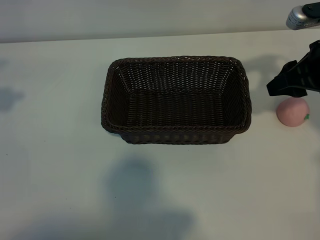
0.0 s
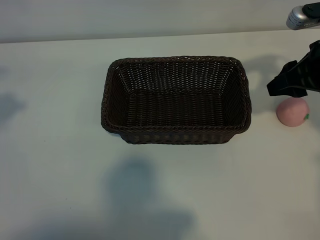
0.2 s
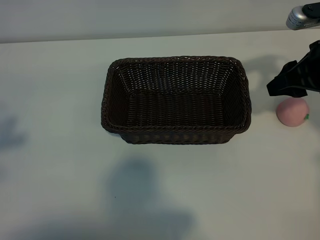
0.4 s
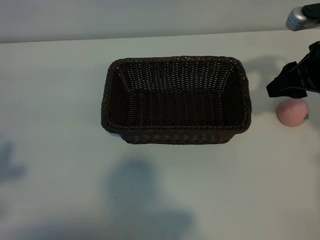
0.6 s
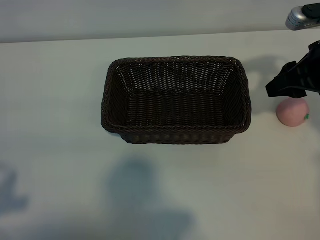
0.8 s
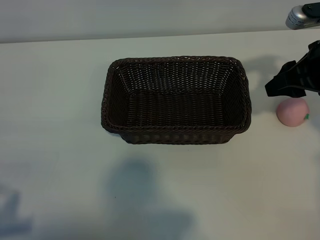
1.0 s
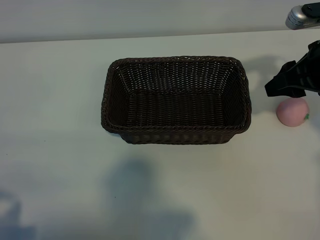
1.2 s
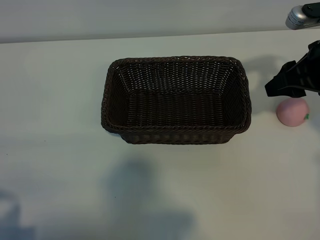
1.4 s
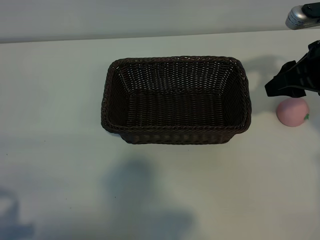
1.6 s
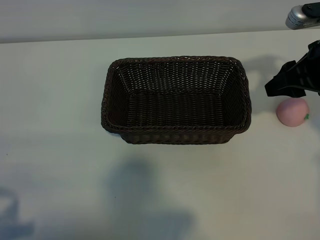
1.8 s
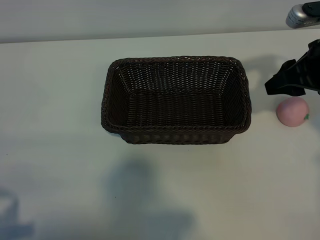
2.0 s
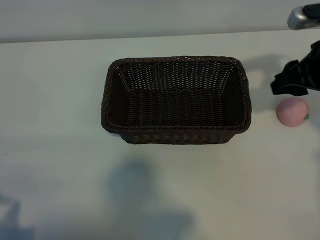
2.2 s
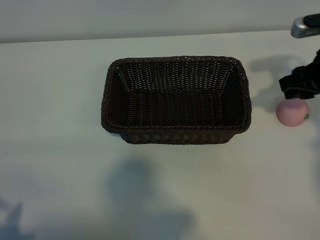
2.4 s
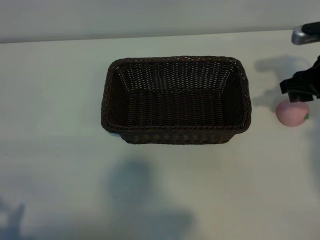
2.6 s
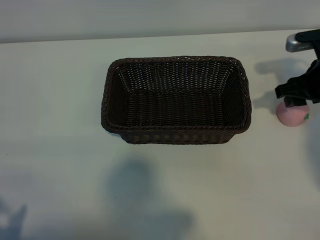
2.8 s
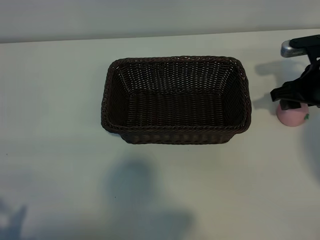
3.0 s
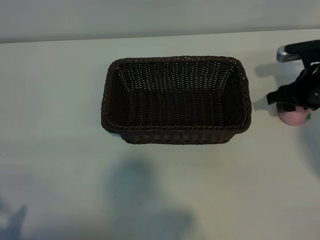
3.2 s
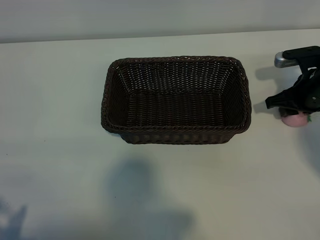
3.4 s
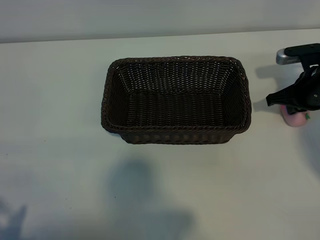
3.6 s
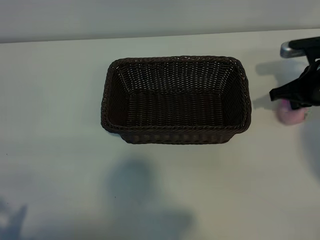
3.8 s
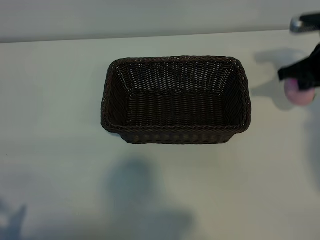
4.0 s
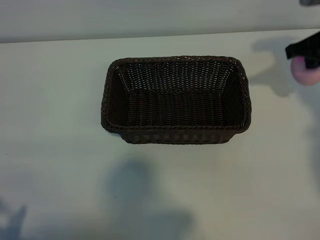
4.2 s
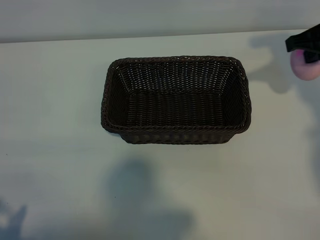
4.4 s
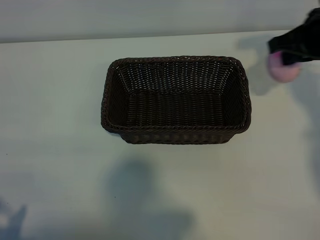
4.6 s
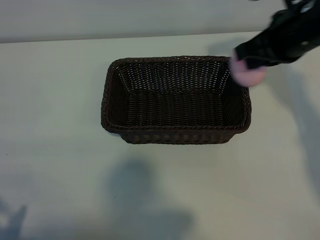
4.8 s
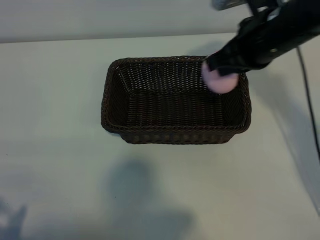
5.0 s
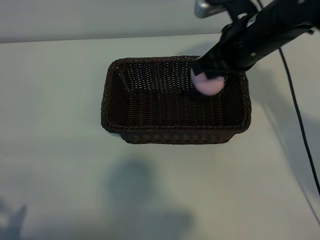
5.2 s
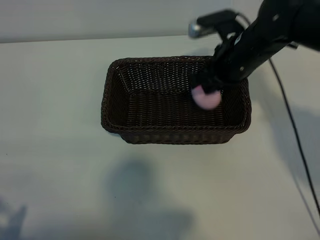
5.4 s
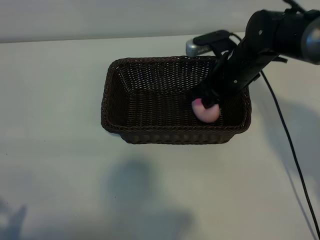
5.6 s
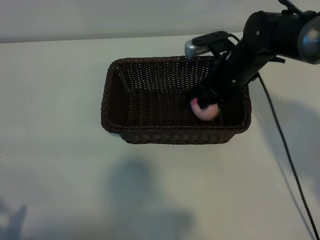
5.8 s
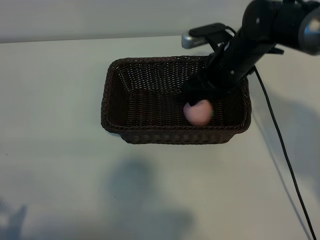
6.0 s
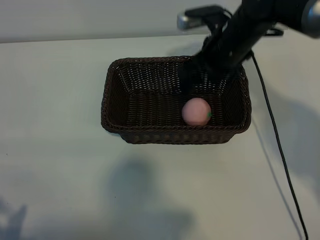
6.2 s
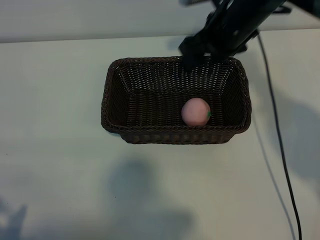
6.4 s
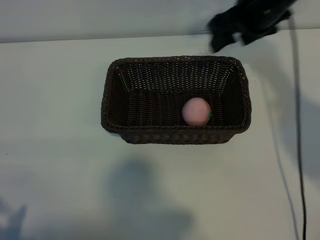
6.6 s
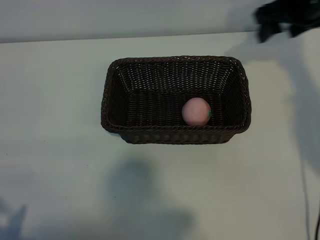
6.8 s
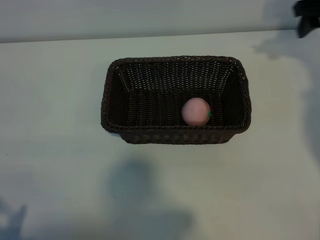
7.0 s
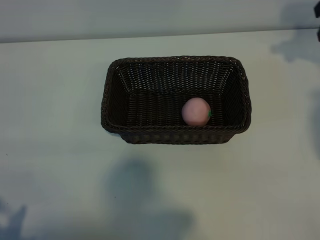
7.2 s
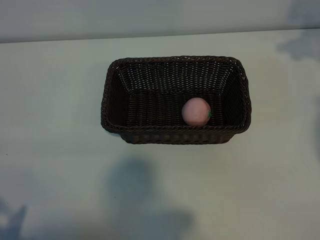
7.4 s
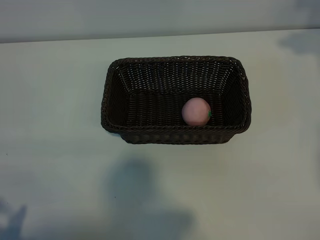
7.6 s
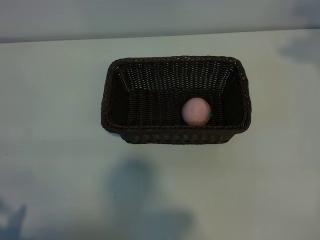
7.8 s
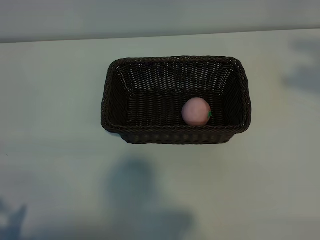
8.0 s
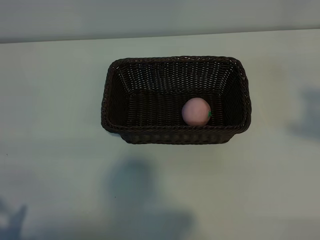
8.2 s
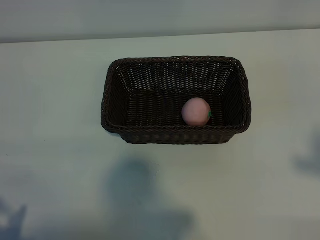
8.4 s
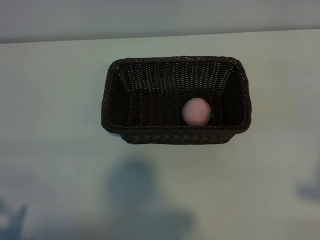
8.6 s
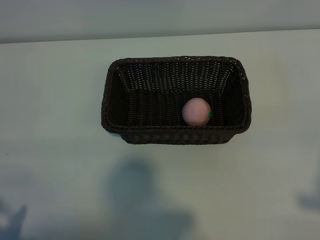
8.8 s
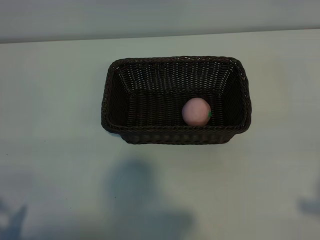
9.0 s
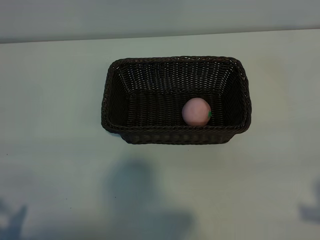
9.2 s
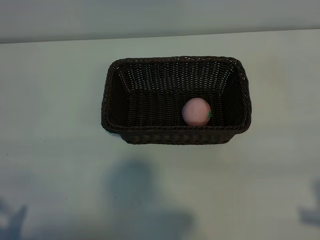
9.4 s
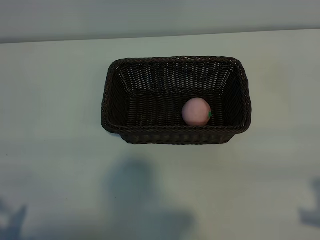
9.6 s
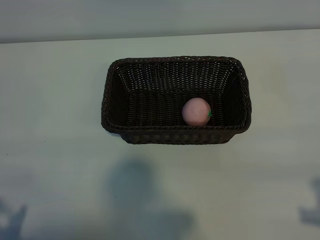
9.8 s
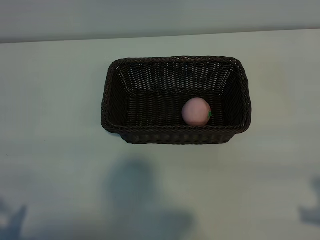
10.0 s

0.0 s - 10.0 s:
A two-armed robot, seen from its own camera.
Task of the whole recording: pick up the peach and put it into the basket.
Step, 0.0 s - 3.6 s: Grasp the peach with right gripper.
Step, 3.8 s - 6.0 s: Place the peach in the basket with right gripper.

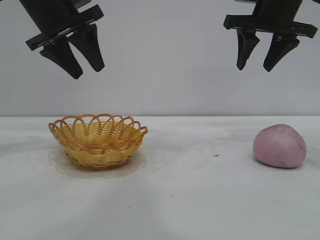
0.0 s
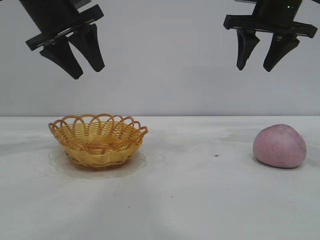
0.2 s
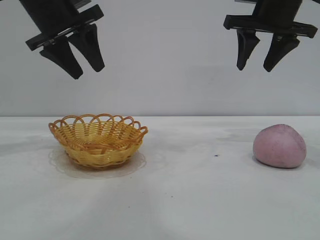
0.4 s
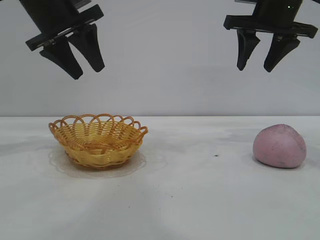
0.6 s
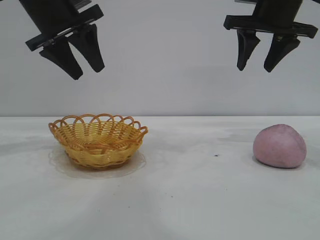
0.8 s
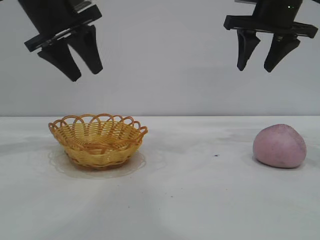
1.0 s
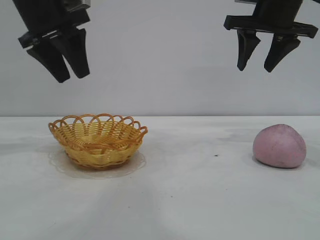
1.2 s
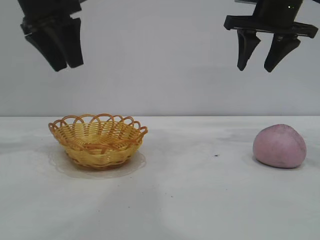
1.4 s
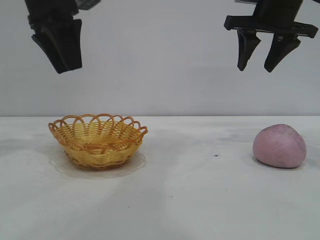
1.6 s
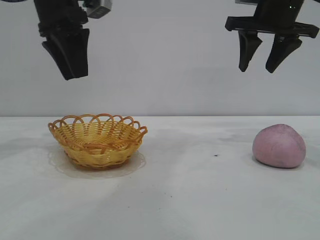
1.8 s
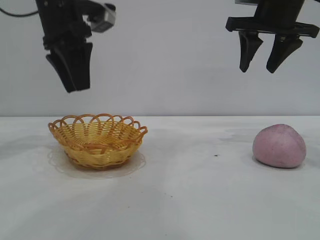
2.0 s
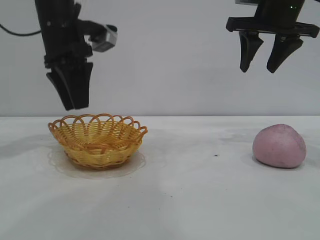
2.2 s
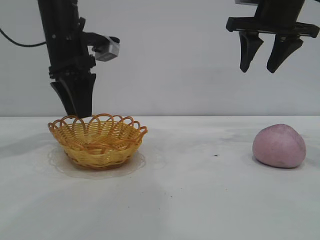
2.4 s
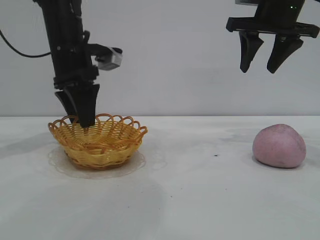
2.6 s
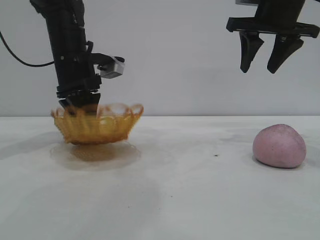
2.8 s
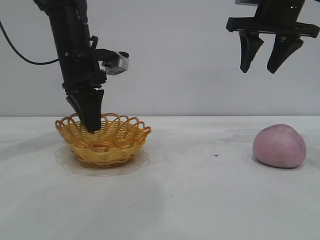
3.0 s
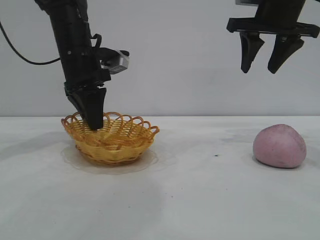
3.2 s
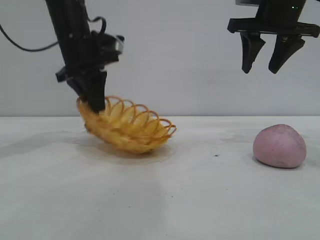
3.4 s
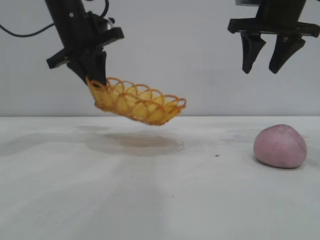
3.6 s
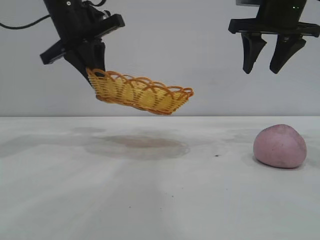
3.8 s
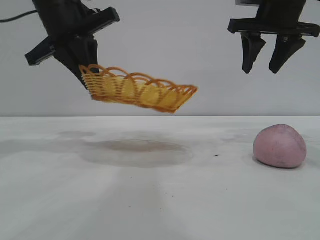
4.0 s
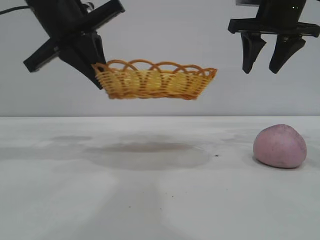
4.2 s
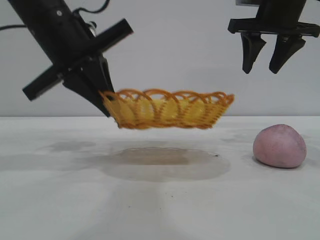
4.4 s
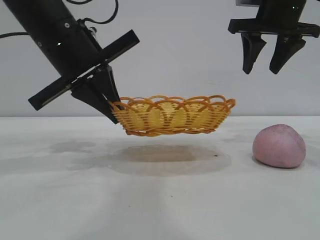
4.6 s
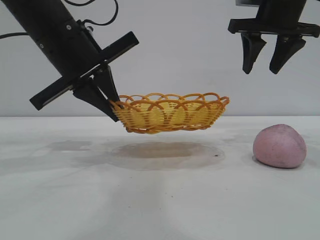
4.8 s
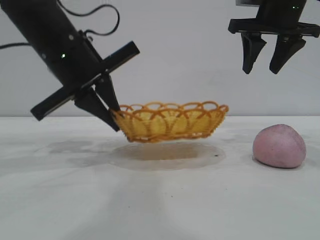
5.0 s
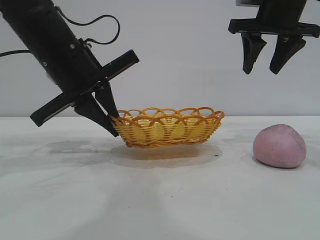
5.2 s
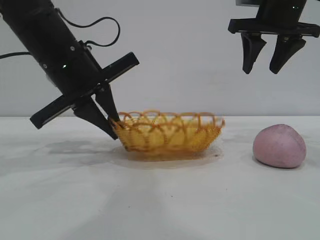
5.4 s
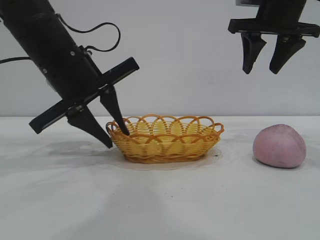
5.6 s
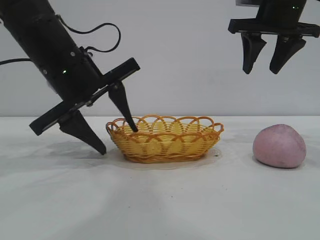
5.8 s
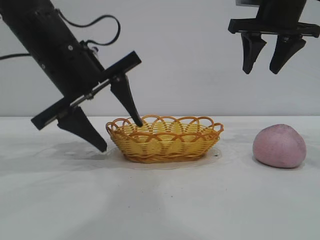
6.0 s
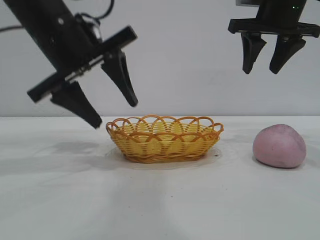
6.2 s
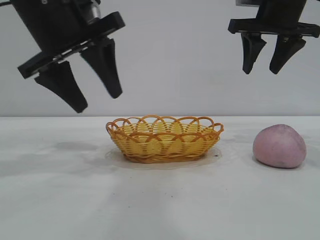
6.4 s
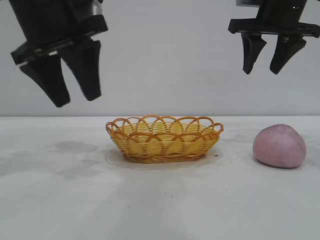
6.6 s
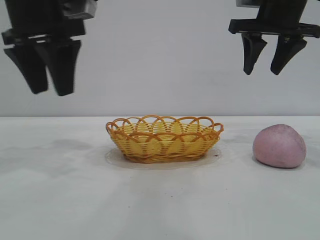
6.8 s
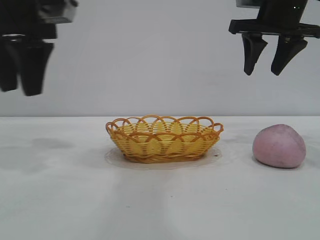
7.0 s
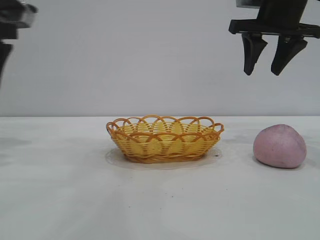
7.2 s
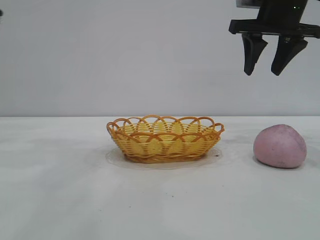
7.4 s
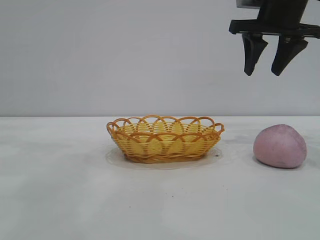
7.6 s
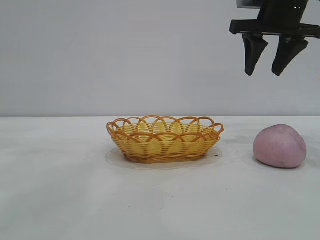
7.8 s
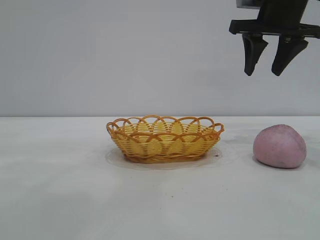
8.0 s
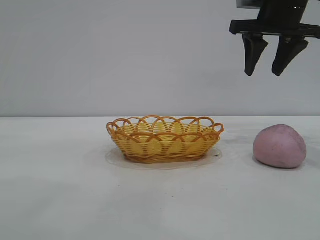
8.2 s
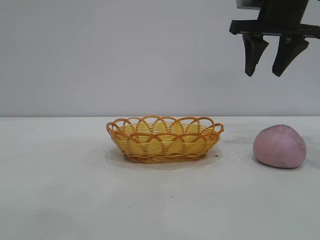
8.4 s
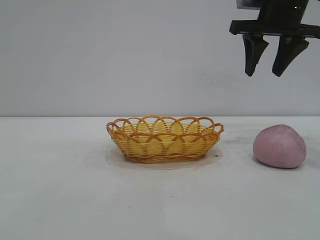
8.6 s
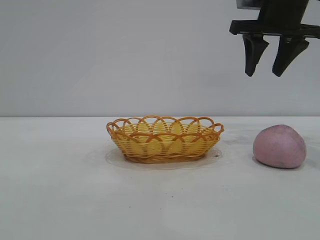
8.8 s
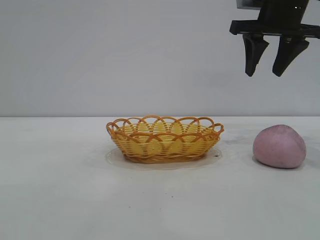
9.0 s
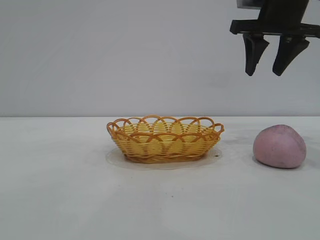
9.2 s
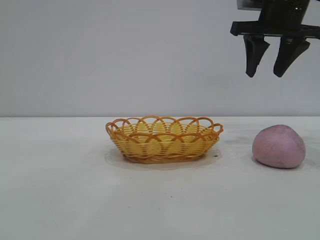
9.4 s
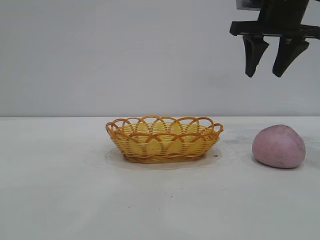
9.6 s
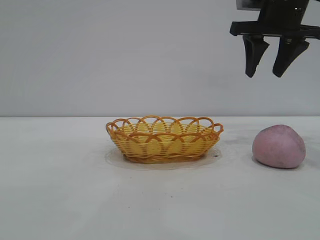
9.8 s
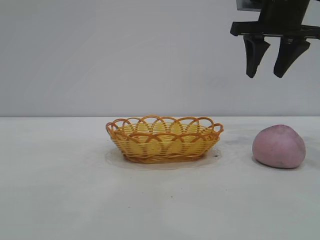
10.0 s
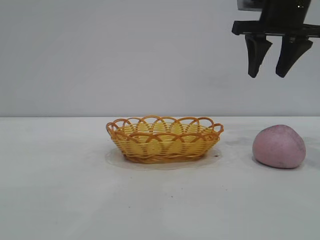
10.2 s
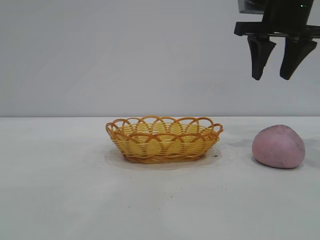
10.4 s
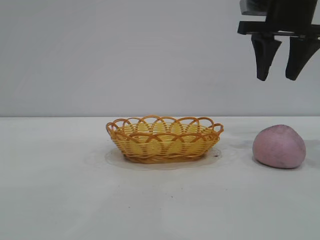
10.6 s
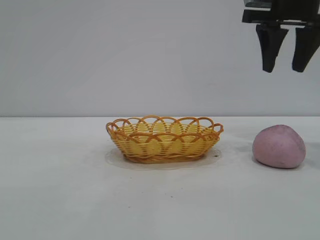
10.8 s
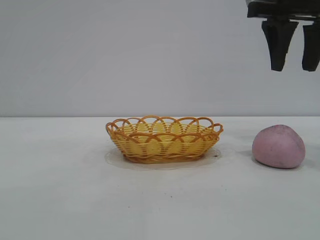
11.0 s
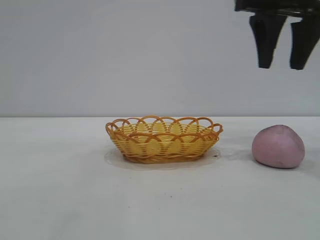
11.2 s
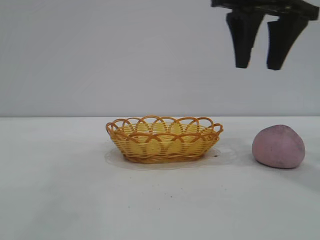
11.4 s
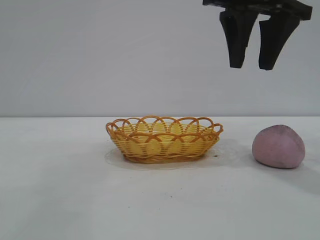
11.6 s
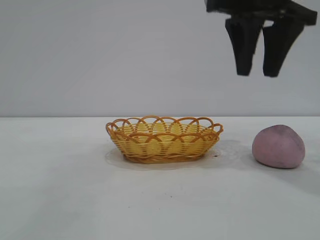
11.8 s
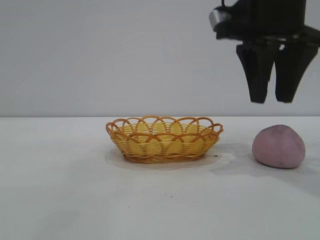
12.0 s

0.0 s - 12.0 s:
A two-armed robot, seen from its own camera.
Task of the whole recording: pick up the peach and put it into the basket.
Step, 0.0 s - 6.6 s: Move the basket to the center of view.

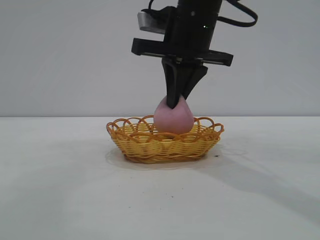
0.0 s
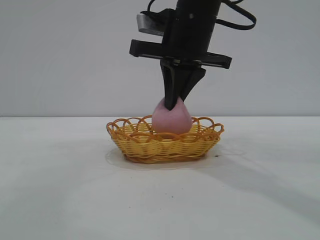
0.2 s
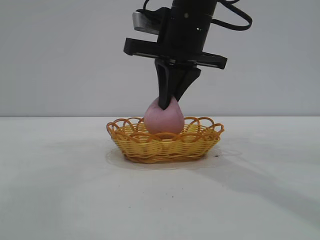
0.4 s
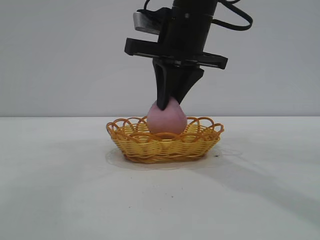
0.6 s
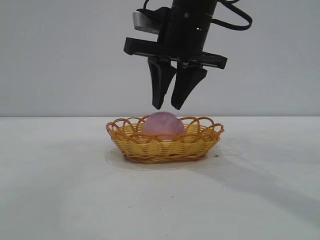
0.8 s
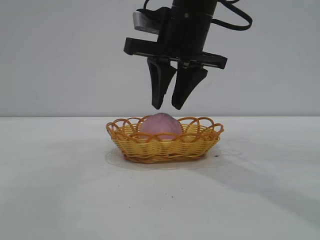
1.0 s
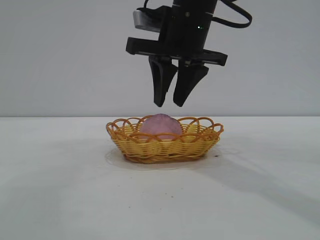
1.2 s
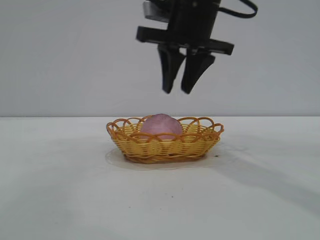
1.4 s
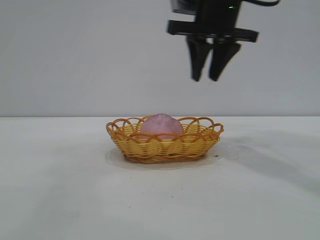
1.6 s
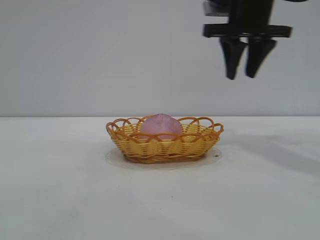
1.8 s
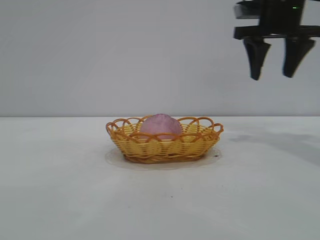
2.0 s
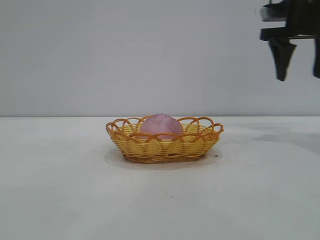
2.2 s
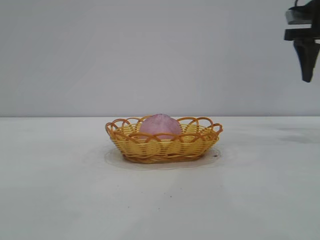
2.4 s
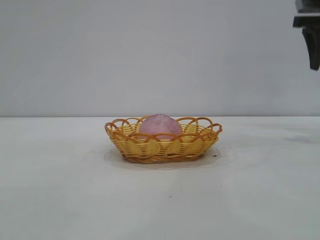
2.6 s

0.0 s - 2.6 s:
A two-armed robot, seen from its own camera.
Task of the whole recording: pick up the peach and put it into the basket.
Step, 0.0 s - 1.4 s: place the peach into the basket.
